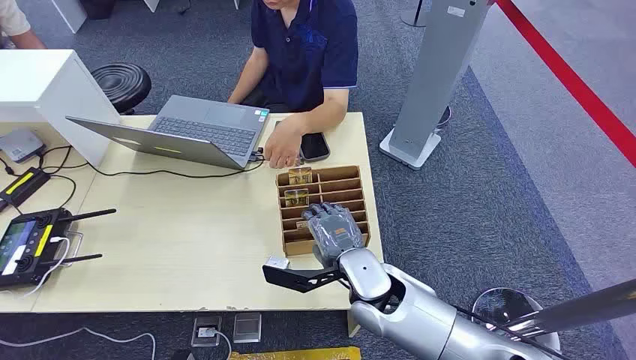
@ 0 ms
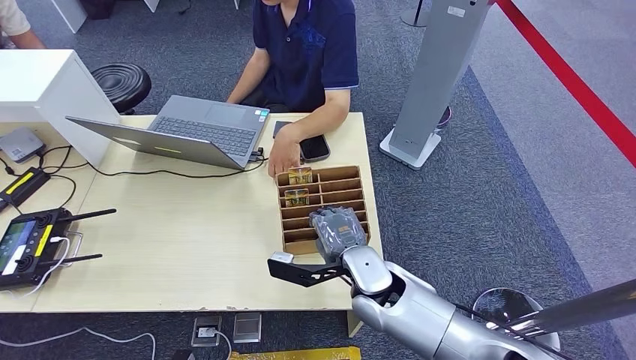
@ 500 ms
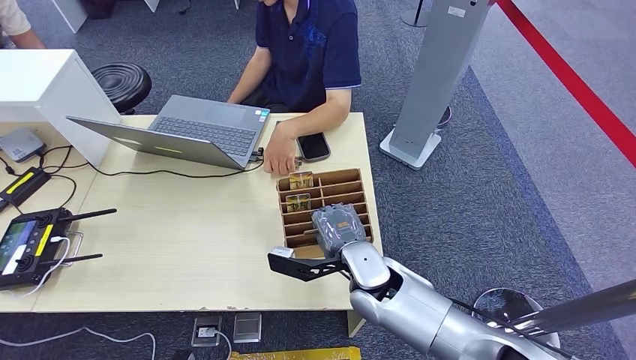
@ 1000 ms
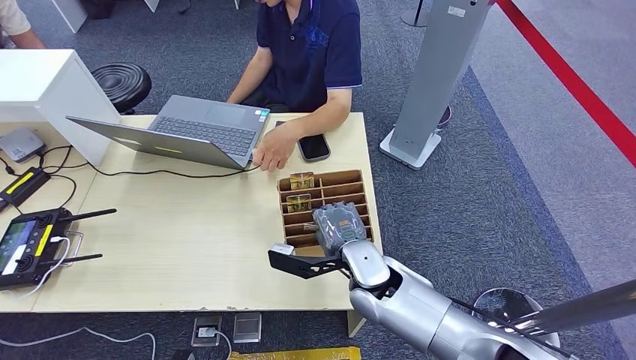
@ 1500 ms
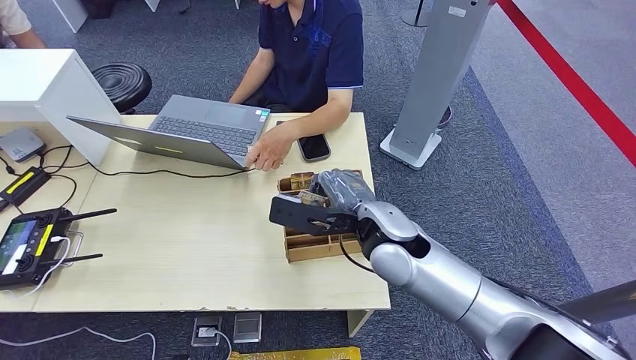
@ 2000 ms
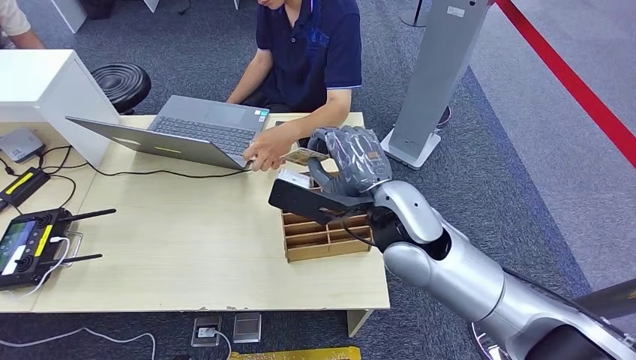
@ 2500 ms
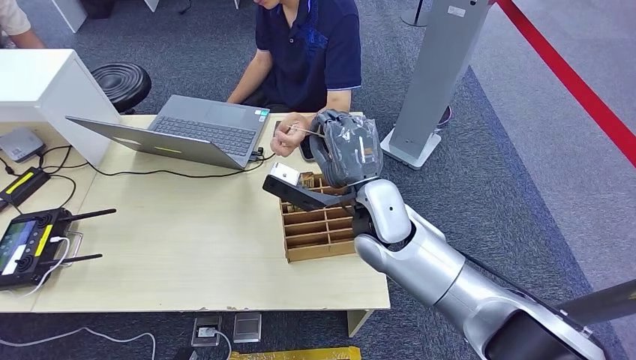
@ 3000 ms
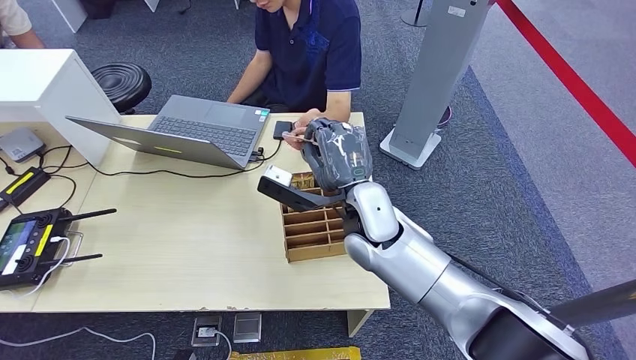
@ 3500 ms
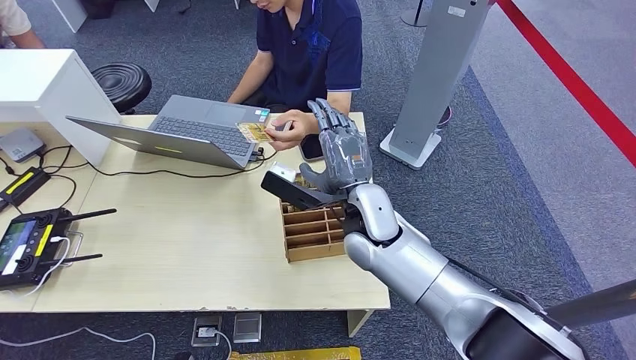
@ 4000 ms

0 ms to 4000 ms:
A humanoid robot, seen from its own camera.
Step, 0 ms to 1500 ms: Pick up the key card from the card box.
Step, 3000 ms to 4000 ms: Hand the key card to the target.
